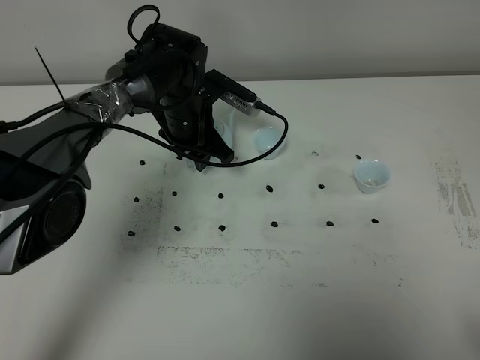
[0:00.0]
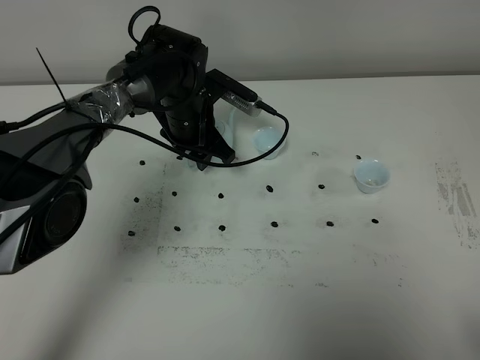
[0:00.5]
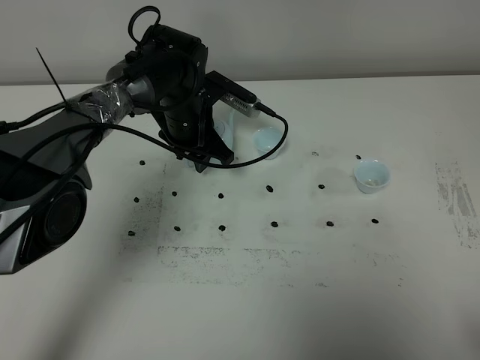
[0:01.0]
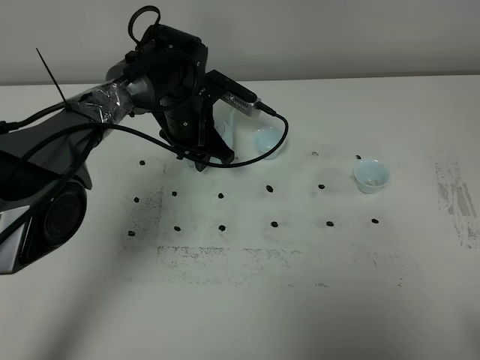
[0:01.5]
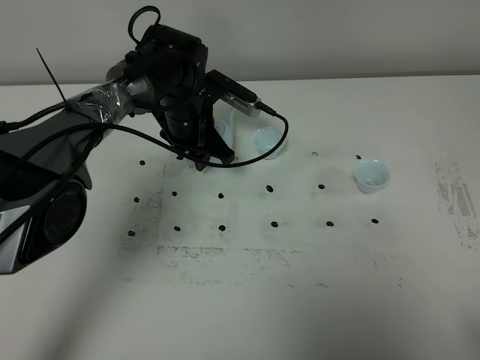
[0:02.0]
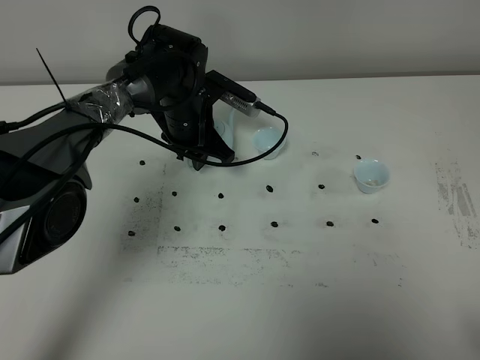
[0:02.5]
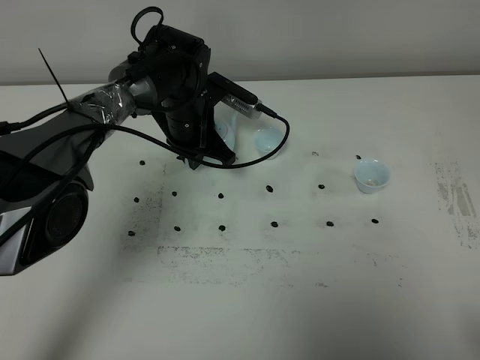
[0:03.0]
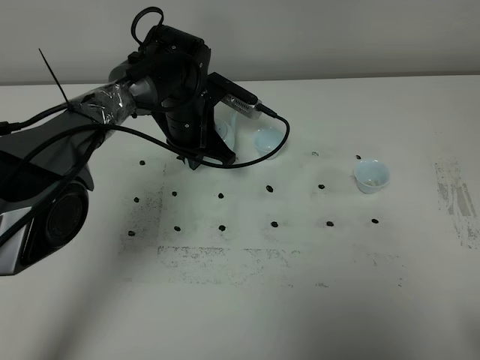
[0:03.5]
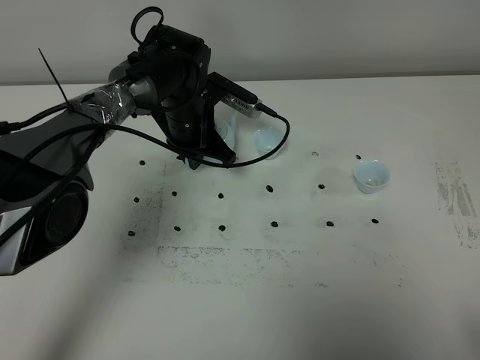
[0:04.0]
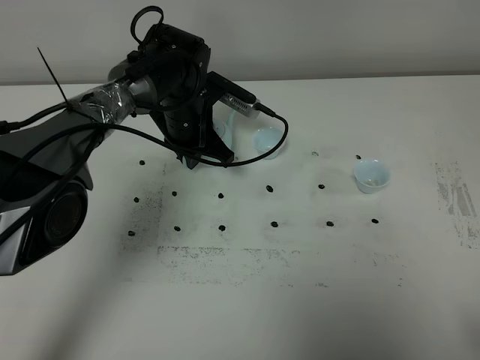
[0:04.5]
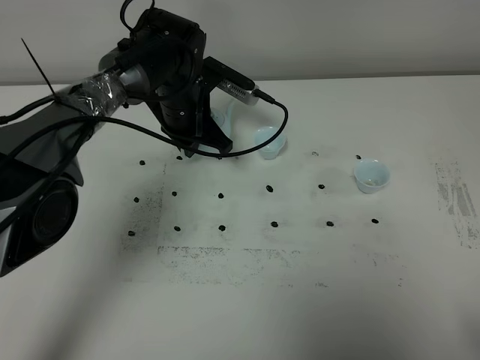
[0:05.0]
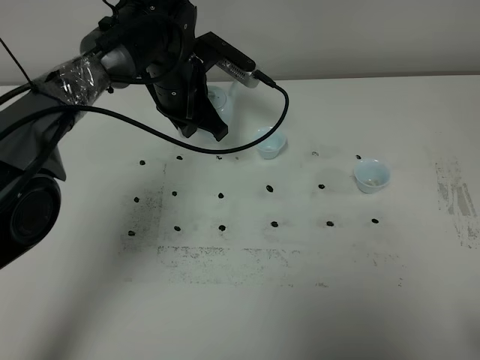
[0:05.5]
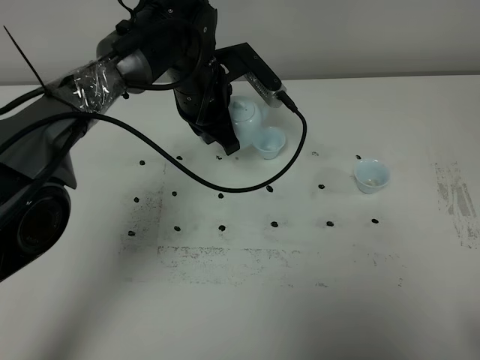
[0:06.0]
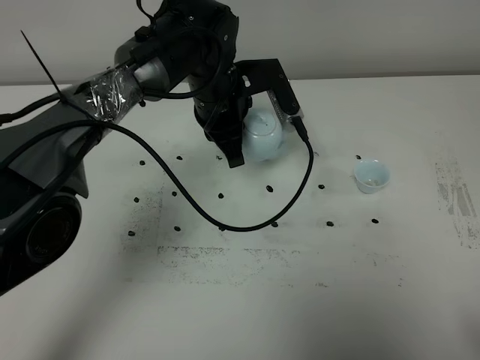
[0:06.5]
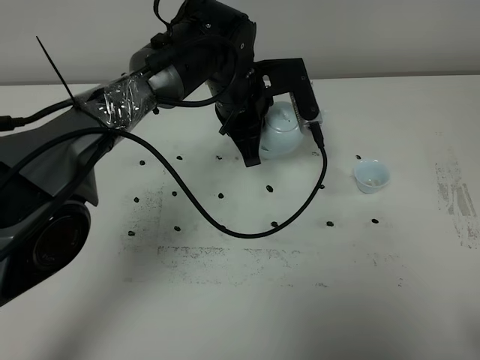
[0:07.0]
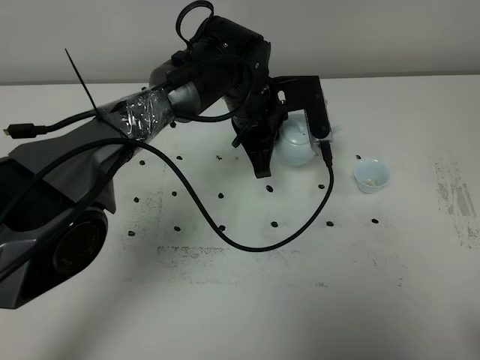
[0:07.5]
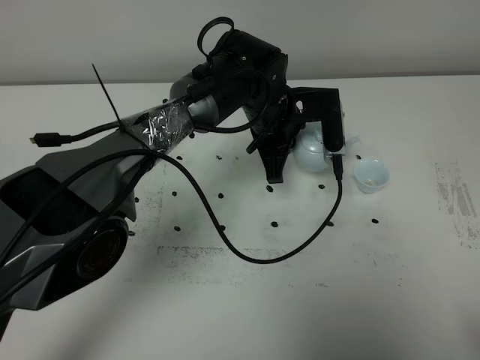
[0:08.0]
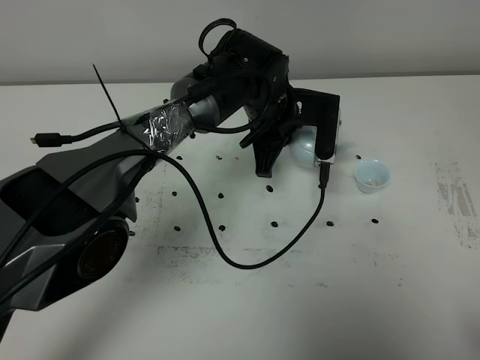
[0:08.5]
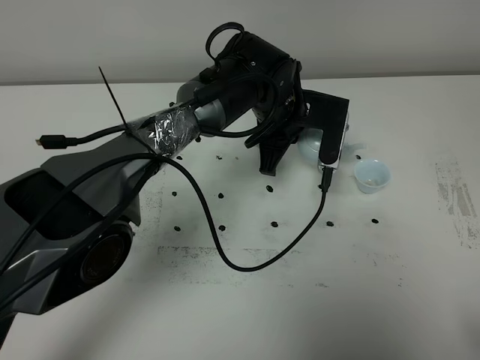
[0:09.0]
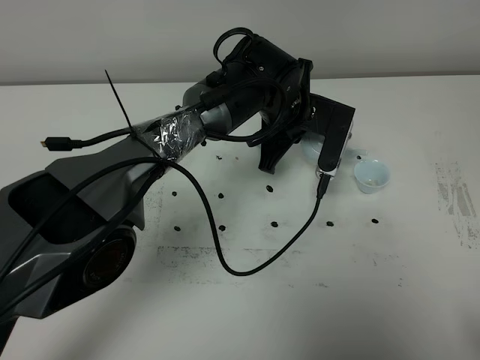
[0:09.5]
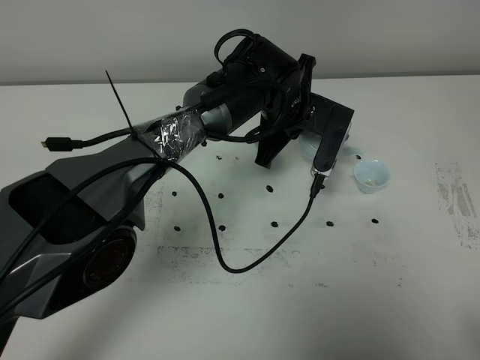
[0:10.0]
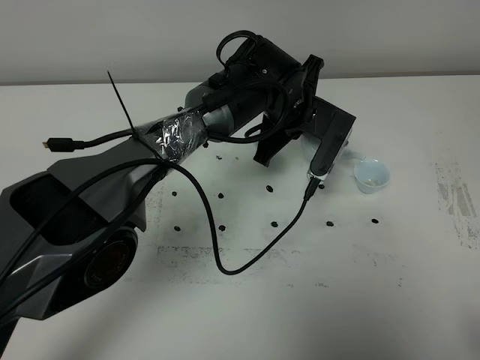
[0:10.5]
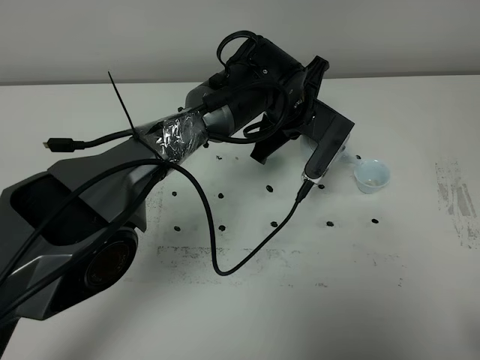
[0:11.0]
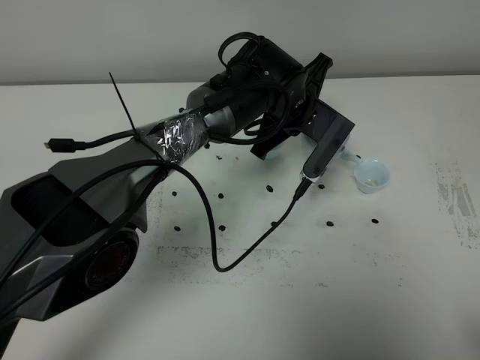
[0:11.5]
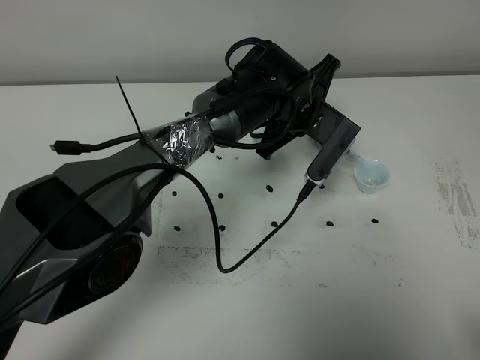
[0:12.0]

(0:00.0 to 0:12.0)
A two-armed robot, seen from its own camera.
Task of the whole recording: grasp the blue porcelain teapot and pour the tea into the two blue porcelain teacups one by one, put the blue porcelain teapot back in its original place.
Step, 0:00.0 - 0:05.0: Pick up the teapot with the left gripper.
0:00.0 - 0:02.0: The two grippers keep their place.
0:02.0 - 0:04.0: The left gripper closes.
0:04.0 - 0:06.0: The left gripper goes about 5 cm upward.
0:06.0 - 0:08.0: The left gripper is displaced to the right by about 10 cm.
0:10.0 - 0:12.0: The grippers stay close to where they were, moving slightly.

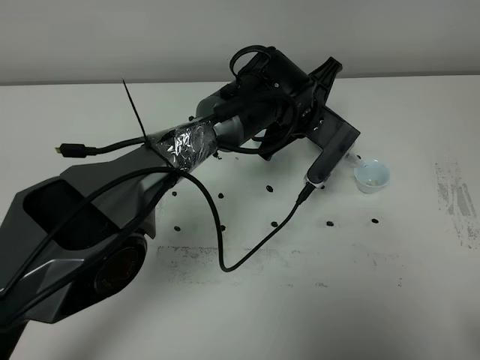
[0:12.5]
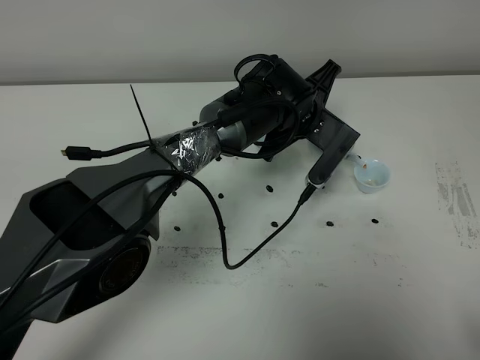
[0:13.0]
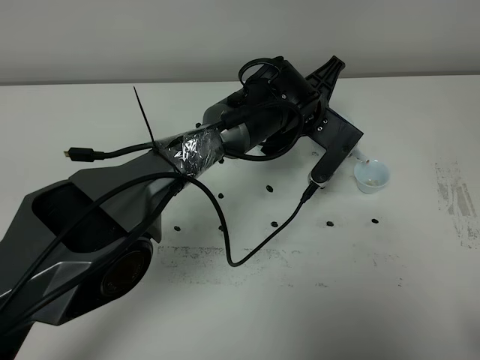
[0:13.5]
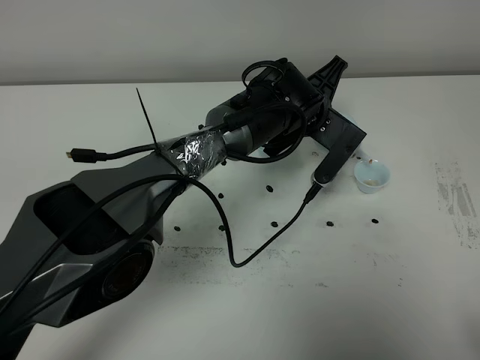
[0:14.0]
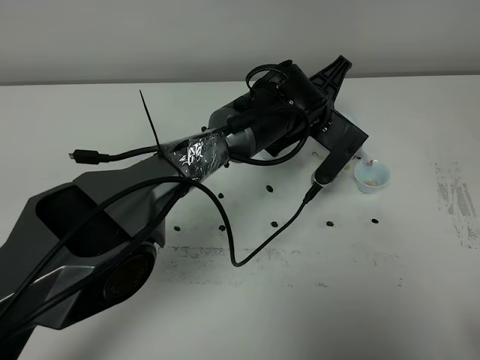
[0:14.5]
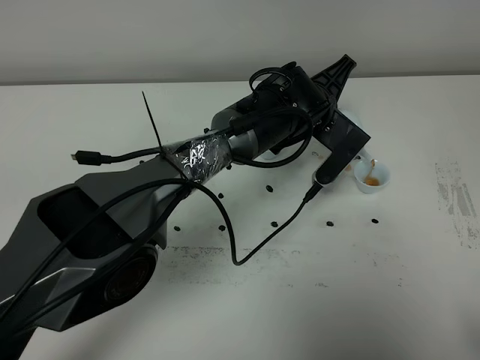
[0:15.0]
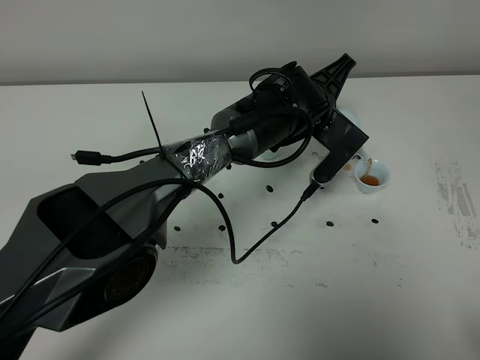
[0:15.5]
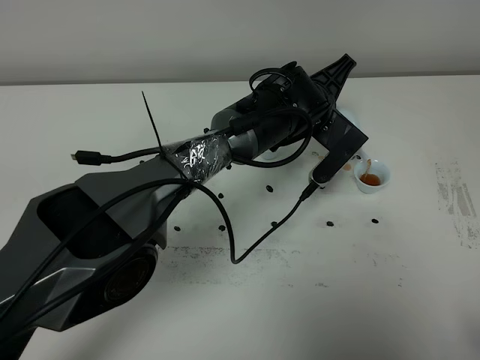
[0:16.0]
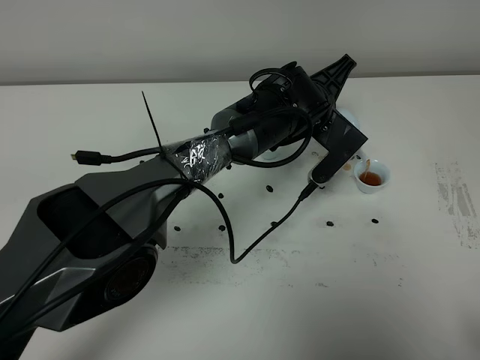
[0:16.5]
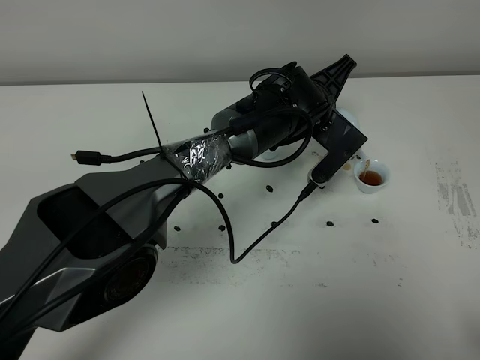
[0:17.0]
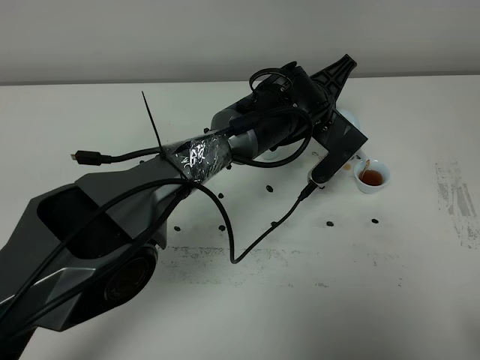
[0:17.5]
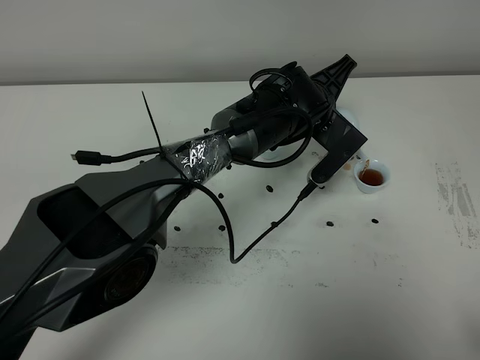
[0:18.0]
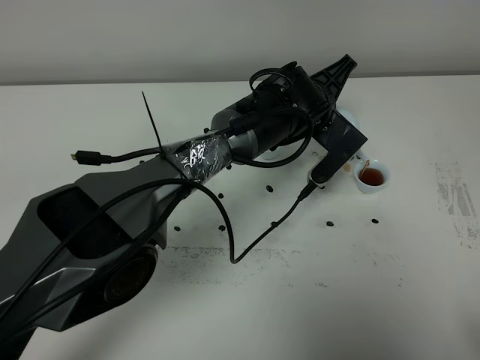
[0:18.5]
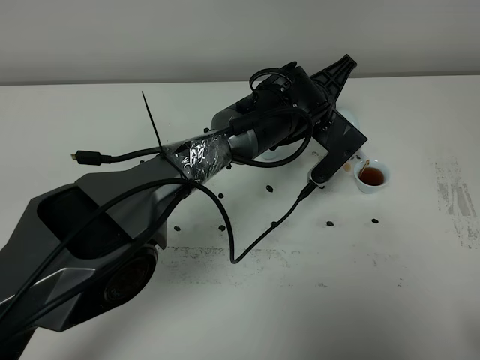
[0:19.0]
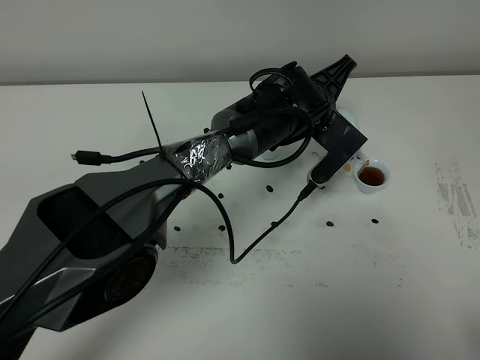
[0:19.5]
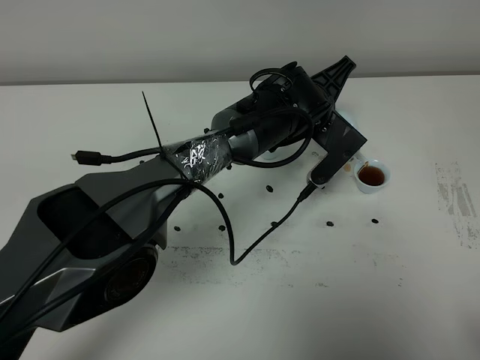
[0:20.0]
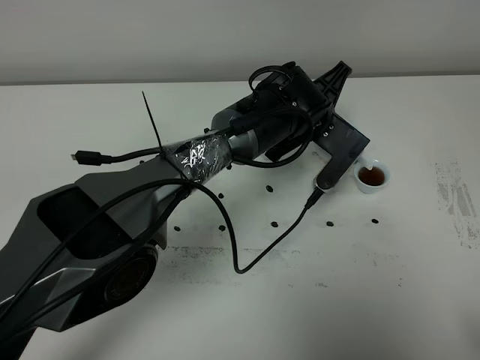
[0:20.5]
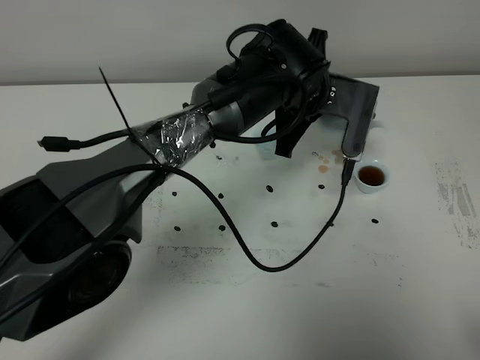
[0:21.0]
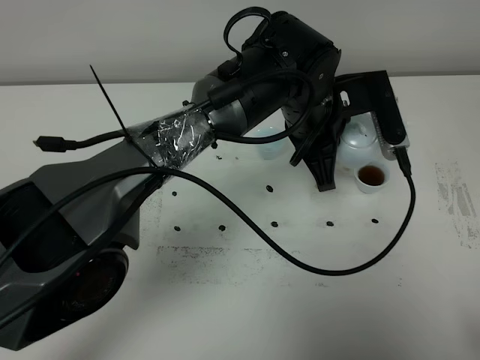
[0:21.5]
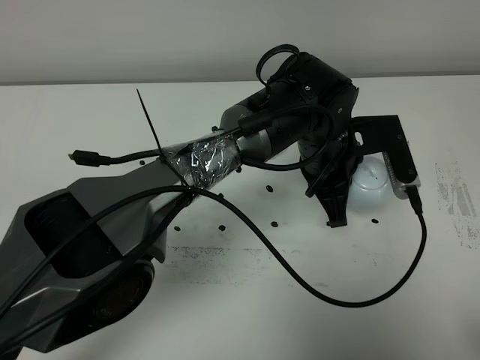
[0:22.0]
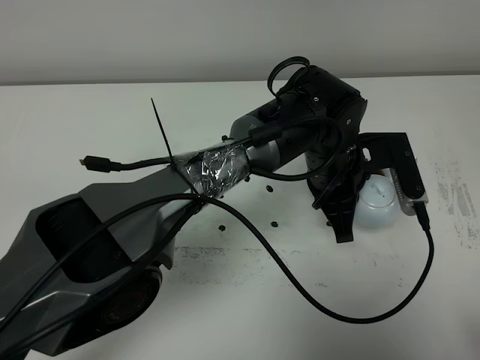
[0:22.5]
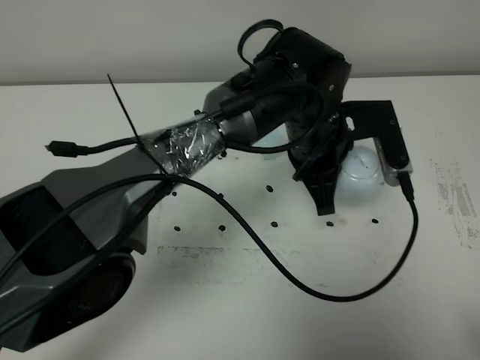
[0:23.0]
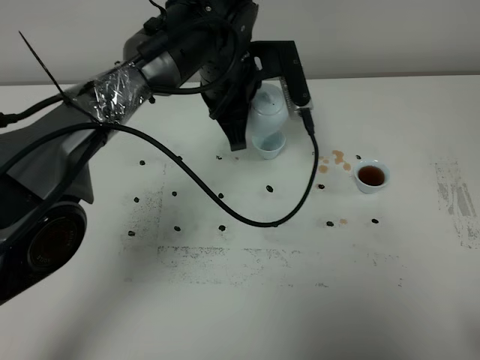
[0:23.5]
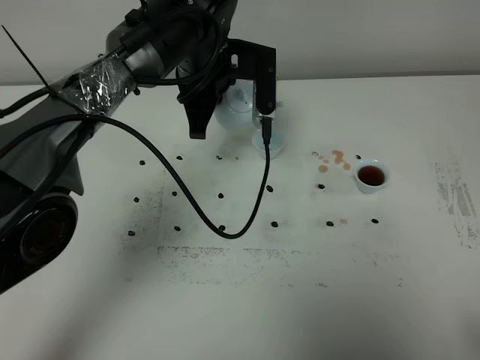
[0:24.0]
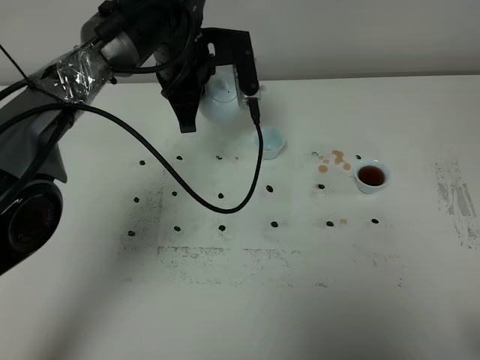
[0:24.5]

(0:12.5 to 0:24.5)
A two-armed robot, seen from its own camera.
Task of the whole recording: grasp the blue porcelain teapot and pour the tea into the two blue porcelain teacups one by one, put the blue porcelain teapot back in its original place.
Step, 0:12.5 - 0:20.5: Pour tea into the teacup with the left gripper.
0:12.5 - 0:14.5: The grippers stay close to where they were, moving slightly.
0:14.5 - 0:16.5: The two grippers keep their place.
0:16.5 - 0:18.5: Both grippers stay put.
0:18.5 - 0:20.5: The grippers stay close to where they were, moving slightly.
0:20.5 - 0:22.5: The left gripper is displaced backward by approximately 10 cm.
0:22.5 - 0:24.5: The left gripper goes some 20 cm to the left and forward.

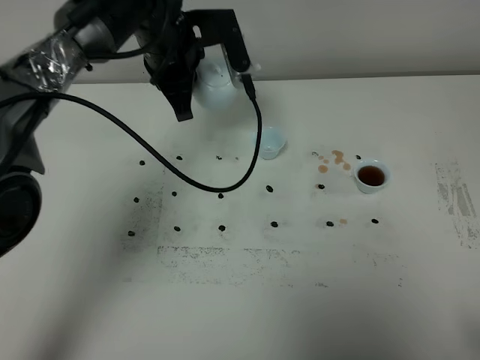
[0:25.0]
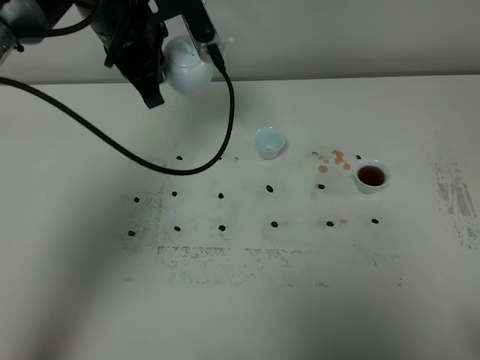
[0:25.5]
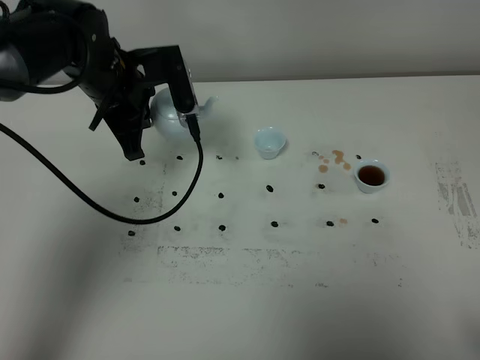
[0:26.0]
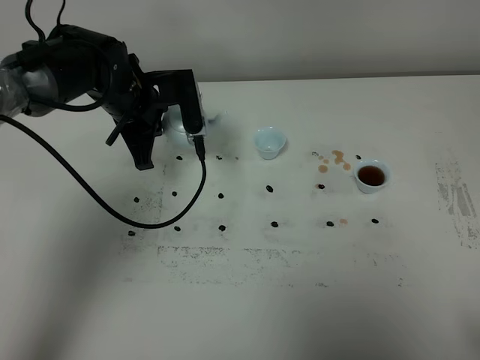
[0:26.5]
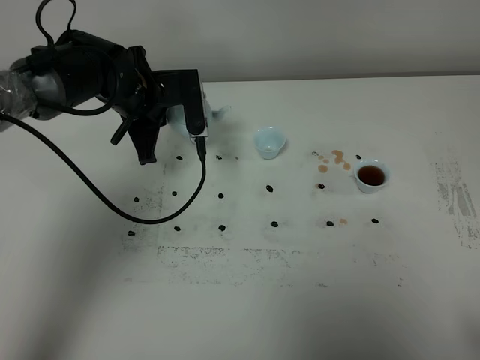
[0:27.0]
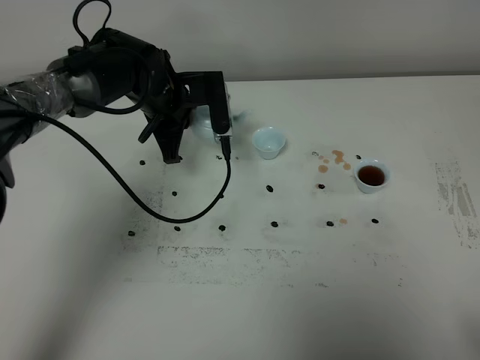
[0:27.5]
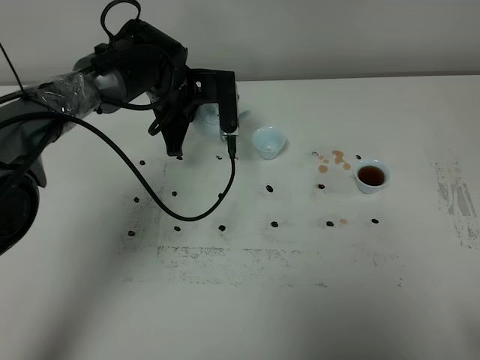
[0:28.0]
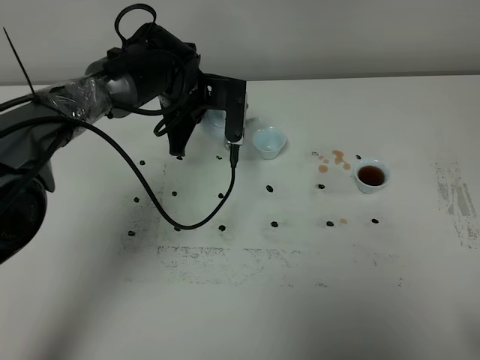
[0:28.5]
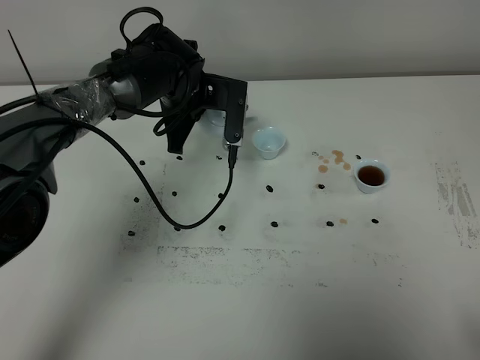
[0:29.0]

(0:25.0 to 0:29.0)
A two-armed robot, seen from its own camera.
Task of the whole recording: grasp the blue porcelain teapot and pour the tea into the two blue porcelain teacups one by one, put the blue porcelain teapot back in its original place.
0:25.0 - 0:27.0: The left gripper is displaced downward by roughly 10 cm.
0:27.0 - 0:29.0: The left gripper goes approximately 5 cm to the right.
